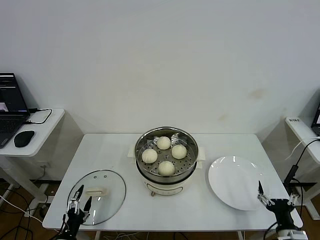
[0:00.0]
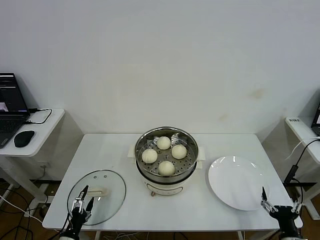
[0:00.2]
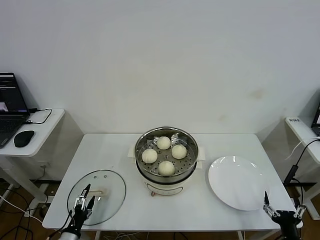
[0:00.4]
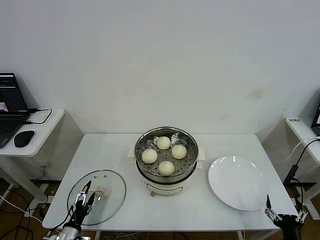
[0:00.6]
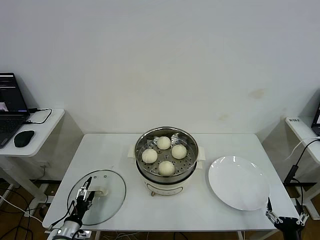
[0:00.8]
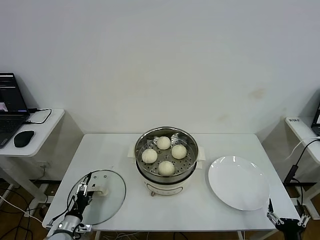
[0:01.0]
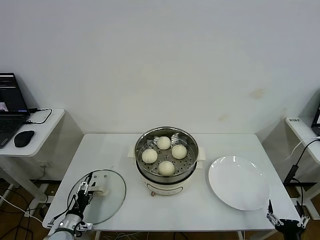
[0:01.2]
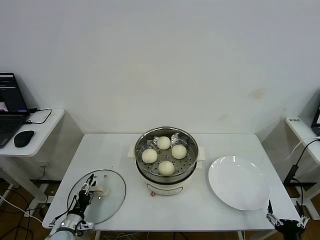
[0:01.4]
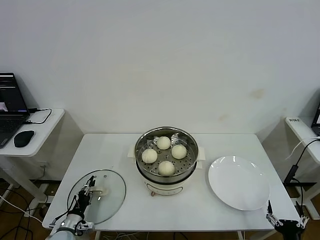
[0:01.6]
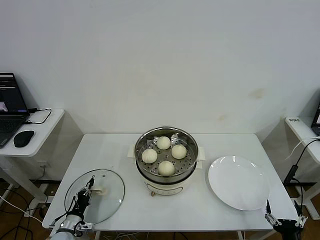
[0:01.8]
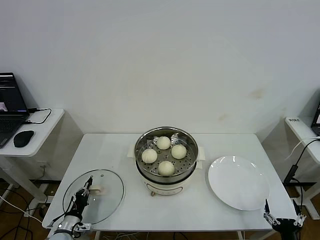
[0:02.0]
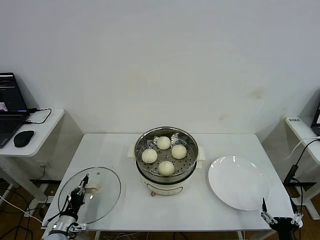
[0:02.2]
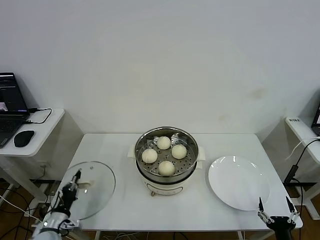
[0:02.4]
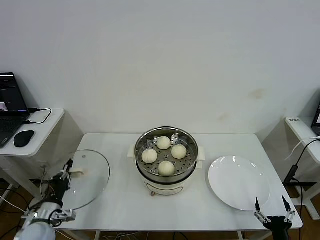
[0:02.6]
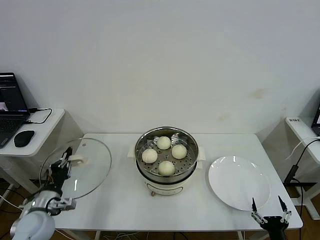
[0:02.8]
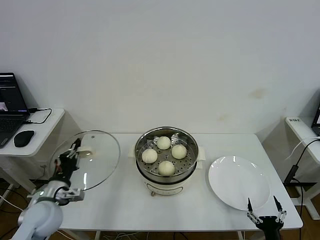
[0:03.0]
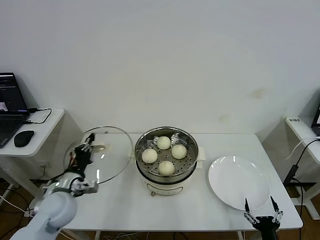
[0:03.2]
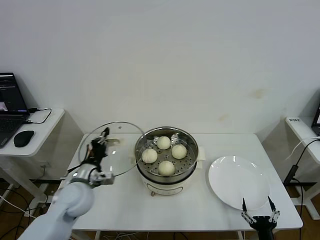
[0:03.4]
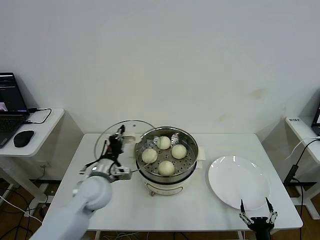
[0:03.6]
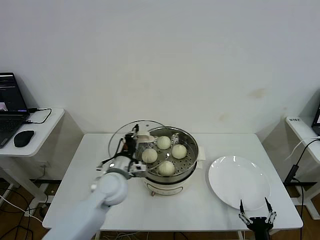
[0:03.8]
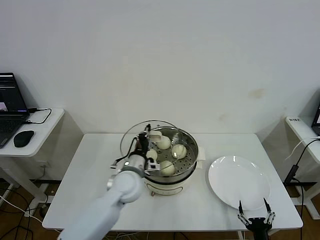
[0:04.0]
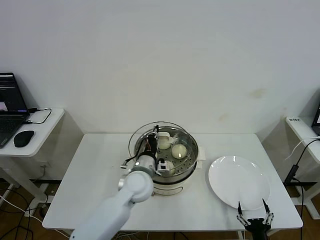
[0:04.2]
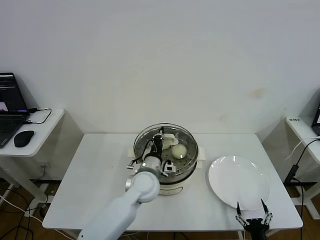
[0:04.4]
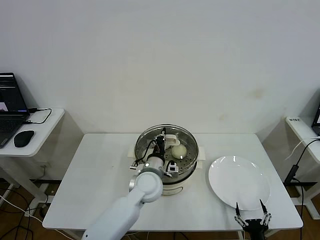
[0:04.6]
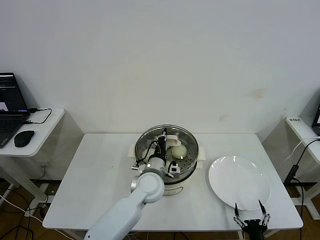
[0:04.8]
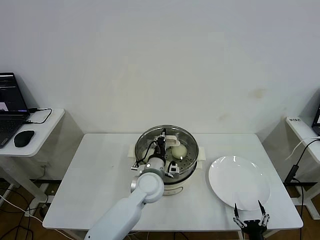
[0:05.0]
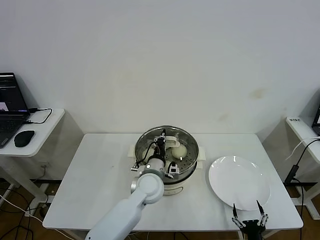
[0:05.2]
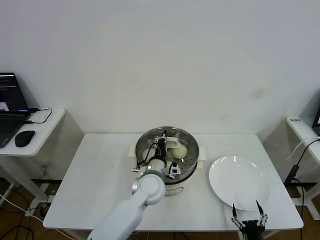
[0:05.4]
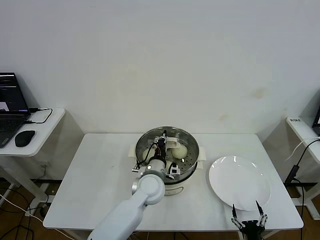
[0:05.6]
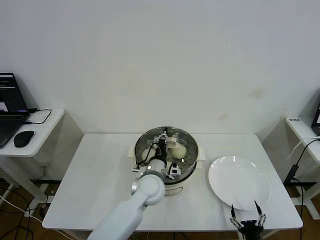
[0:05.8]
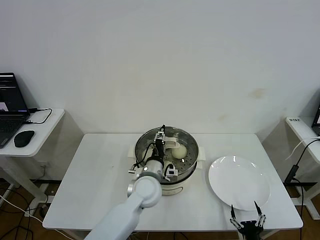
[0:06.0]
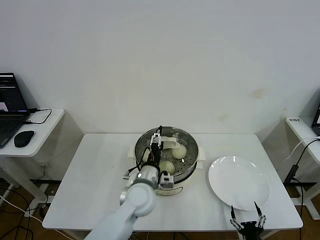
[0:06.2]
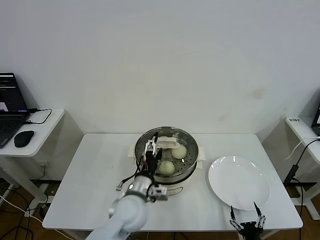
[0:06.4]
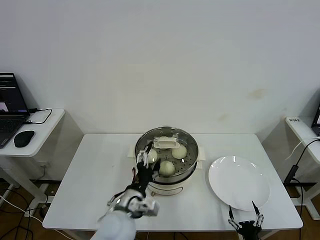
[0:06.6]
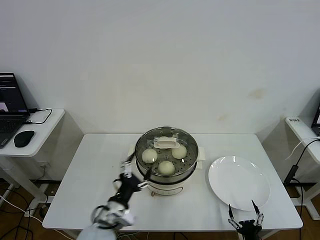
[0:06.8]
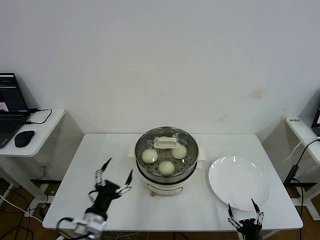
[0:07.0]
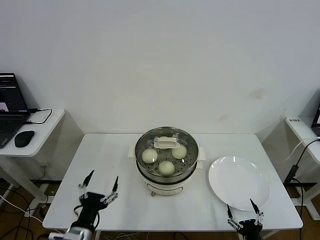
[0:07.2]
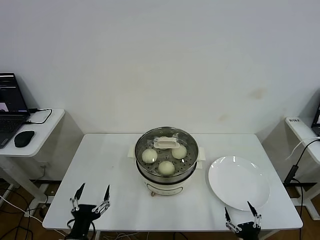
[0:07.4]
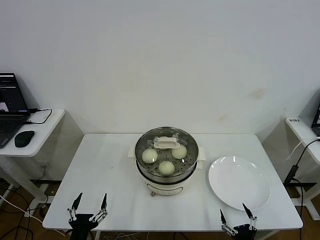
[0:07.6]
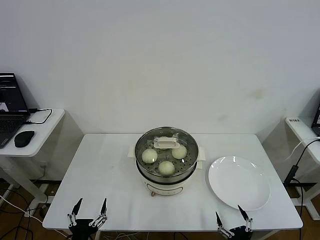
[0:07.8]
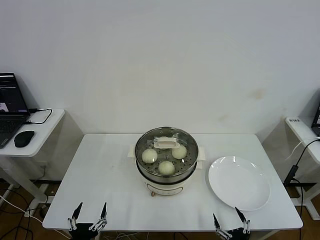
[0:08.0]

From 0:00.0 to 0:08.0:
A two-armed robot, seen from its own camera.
Step, from 0:02.0 to 0:06.0: Place the pot lid on the steamer with left gripper.
From 0:00.0 to 0:01.6: The left gripper is displaced forward and downward by roughly 10 cm, and closes up. Meanwhile the right gripper goes some 5 cm backward.
From 0:01.6 to 0:03.2: The left gripper moves upward, roughly 20 cm, and closes.
From 0:03.2 to 0:04.8: The left gripper shifts some 25 cm to the right.
From 0:04.8 to 0:06.4: The left gripper shifts some 5 cm backward, and opens.
From 0:06.4 to 0:08.0: The right gripper shifts by approximately 5 cm; the left gripper goes approximately 30 cm backward, to the left and downward.

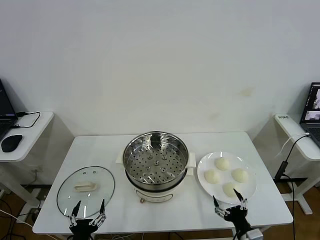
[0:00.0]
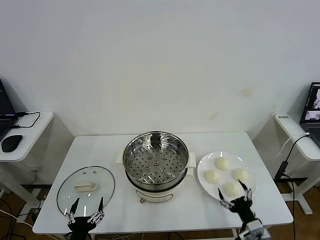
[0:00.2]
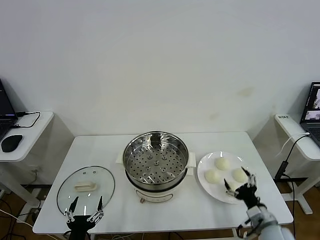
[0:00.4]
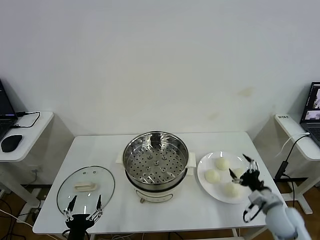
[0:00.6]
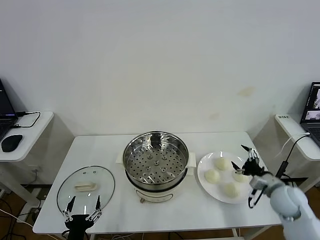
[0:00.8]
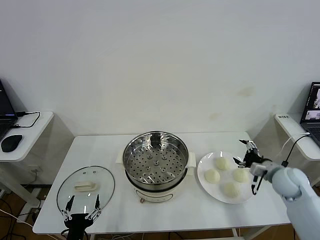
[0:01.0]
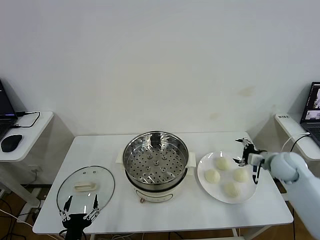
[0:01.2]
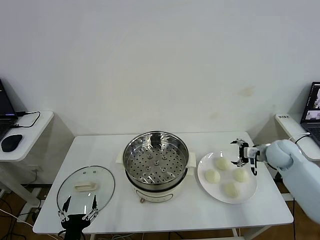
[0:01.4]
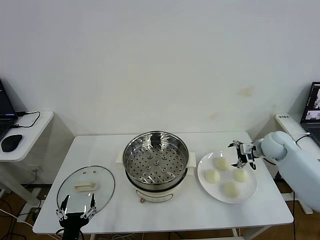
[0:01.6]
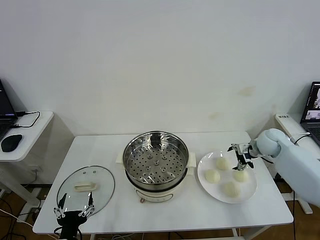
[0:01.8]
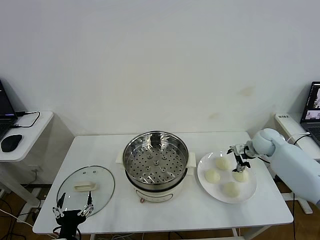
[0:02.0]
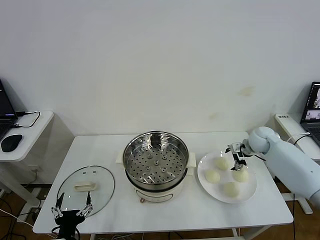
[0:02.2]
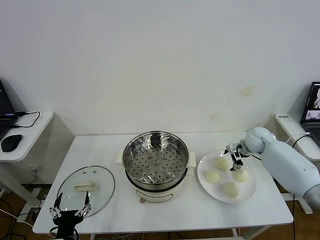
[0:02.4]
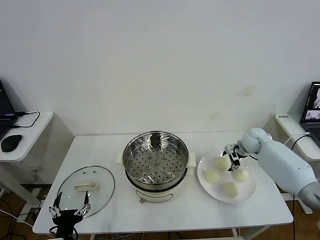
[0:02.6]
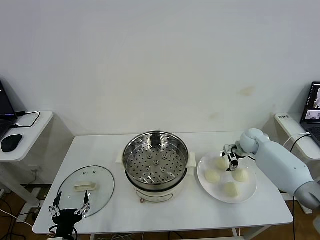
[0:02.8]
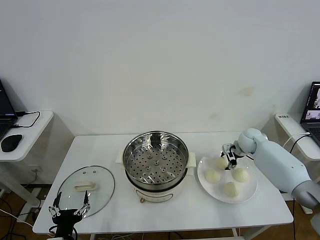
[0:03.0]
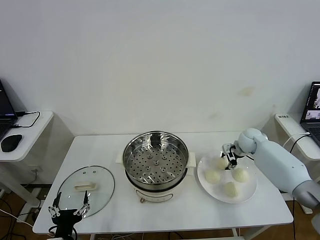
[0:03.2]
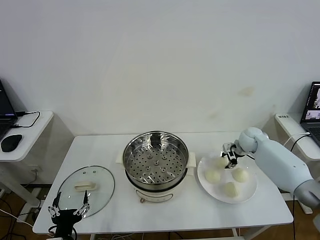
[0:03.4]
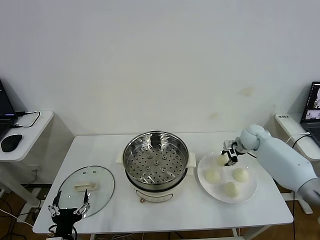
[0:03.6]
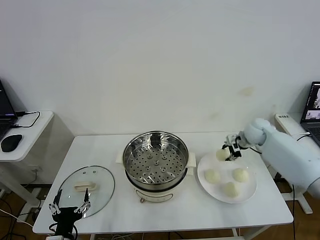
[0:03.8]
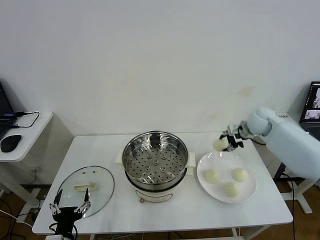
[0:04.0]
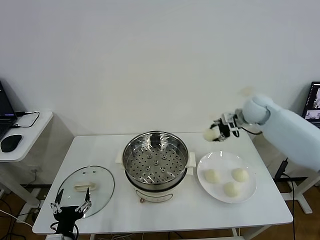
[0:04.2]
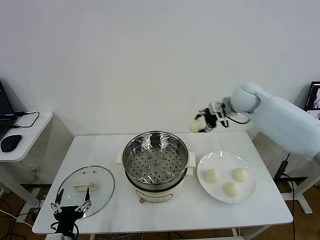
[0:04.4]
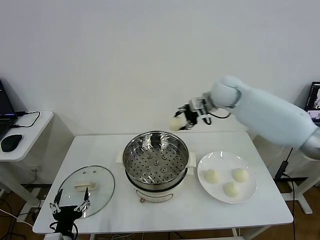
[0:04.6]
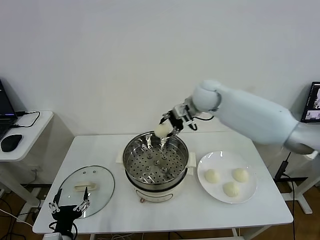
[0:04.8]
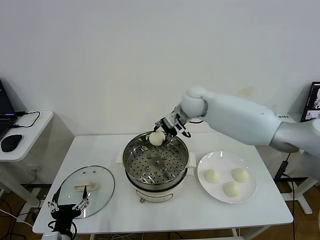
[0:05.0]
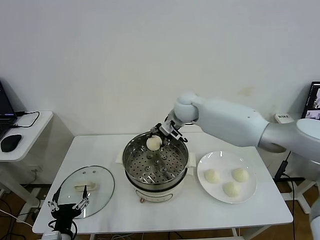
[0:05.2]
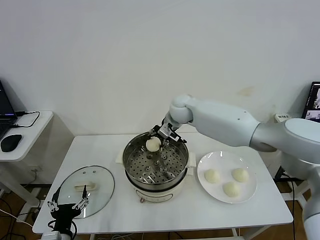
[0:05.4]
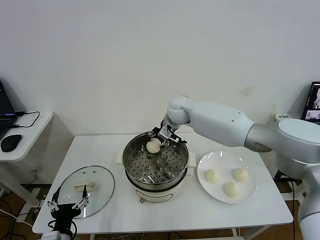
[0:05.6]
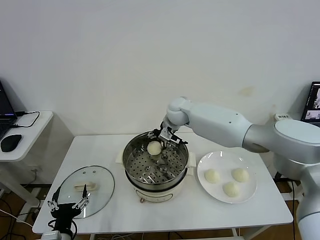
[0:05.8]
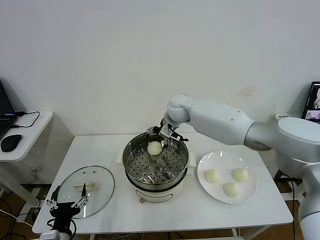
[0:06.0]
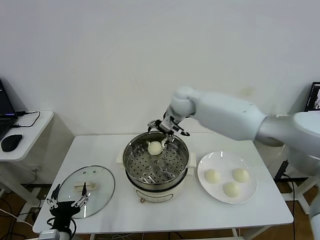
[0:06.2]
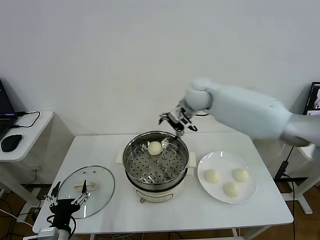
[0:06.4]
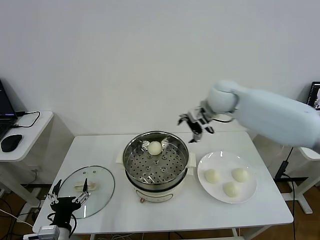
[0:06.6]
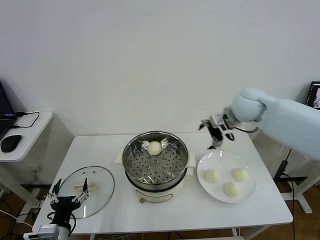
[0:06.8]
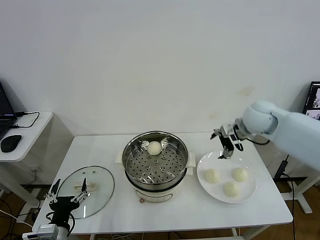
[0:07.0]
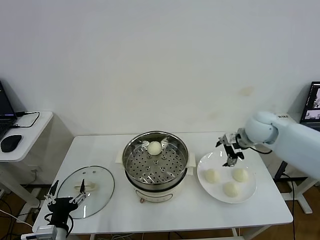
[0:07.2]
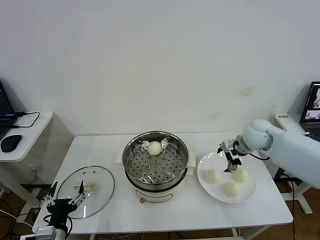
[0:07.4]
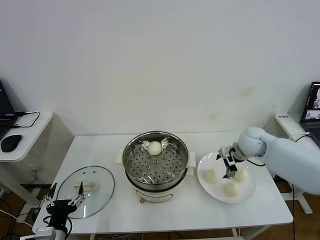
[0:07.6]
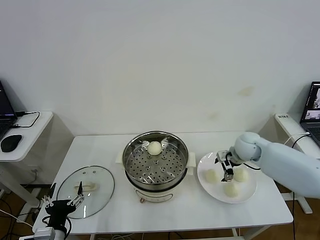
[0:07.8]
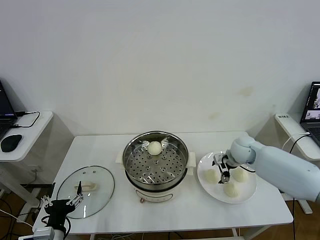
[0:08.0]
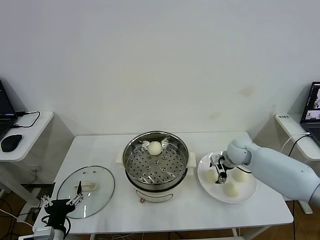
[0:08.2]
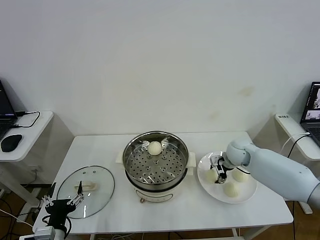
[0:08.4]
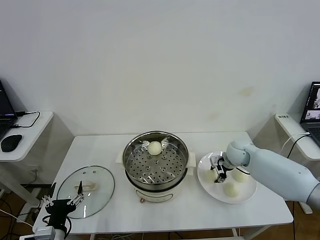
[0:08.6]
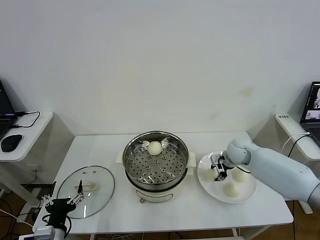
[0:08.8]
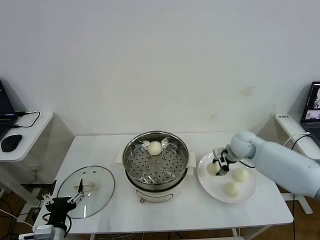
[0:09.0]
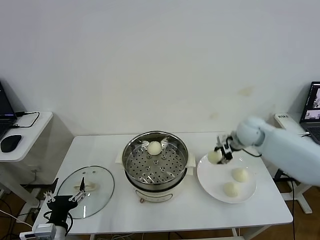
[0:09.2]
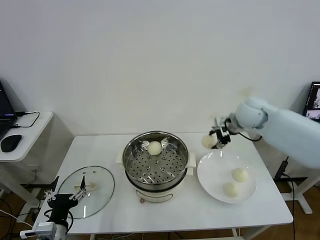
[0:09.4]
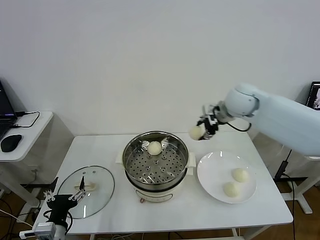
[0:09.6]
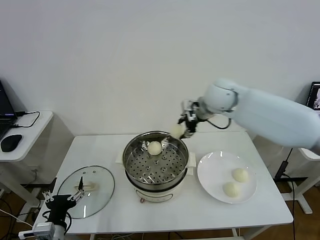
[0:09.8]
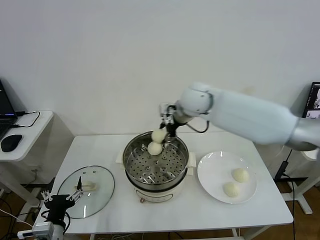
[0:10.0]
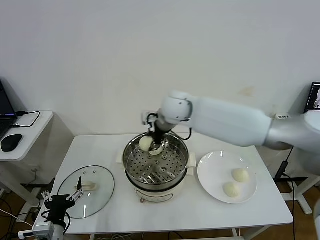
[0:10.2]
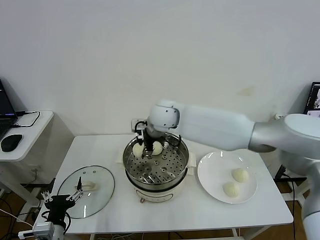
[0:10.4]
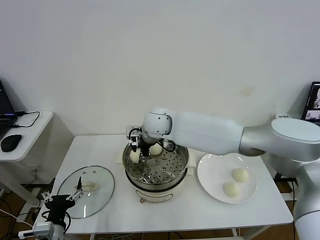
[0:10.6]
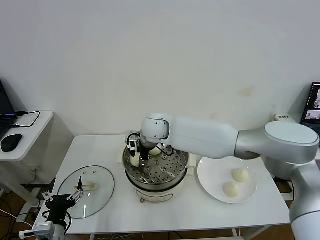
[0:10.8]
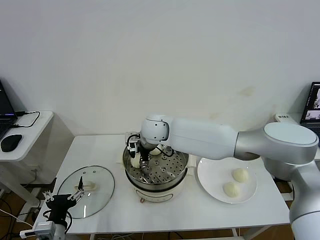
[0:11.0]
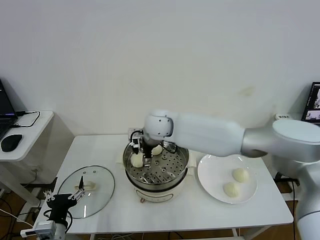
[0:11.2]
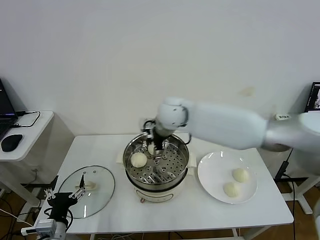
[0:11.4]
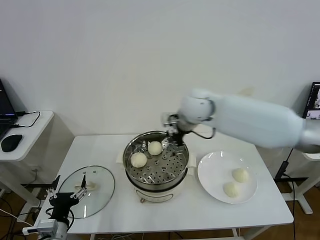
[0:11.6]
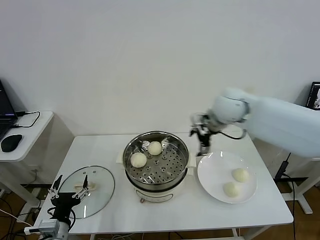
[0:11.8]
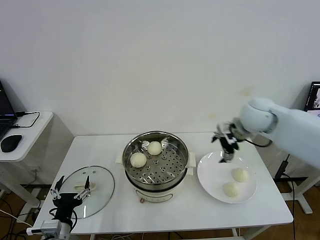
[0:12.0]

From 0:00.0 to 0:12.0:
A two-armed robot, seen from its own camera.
Step, from 0:00.0 to 0:03.2: Grasp the baozi in the plate with right gripper.
Step, from 0:03.4 to 0:05.6: Place the baozi on the steamer with right gripper.
Step, from 0:06.0 to 0:08.6: Grasp the baozi in the plate with right gripper.
Step, from 0:08.8 to 0:11.0: Place the baozi on the steamer with right gripper.
From 0:01.6 to 0:03.0: The right gripper heads forward and downward, covering about 5 cm, and closes its fingers.
From 0:03.0 to 0:04.4: The right gripper goes roughly 25 cm upward and to the left.
From 0:04.4 to 0:06.0: The right gripper shifts about 15 cm to the left, and opens its fingers.
From 0:06.0 to 0:07.6: The right gripper moves to the right and downward, approximately 25 cm.
From 0:07.6 to 0:09.0: The right gripper closes.
From 0:09.0 to 0:10.4: The right gripper shifts some 30 cm to the left.
From 0:10.4 to 0:12.0: The right gripper moves to the right, about 30 cm, and opens.

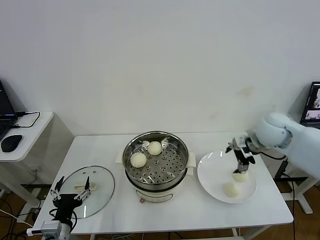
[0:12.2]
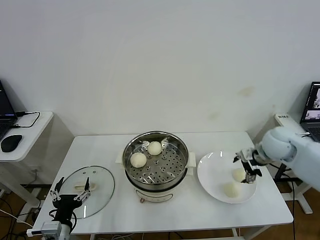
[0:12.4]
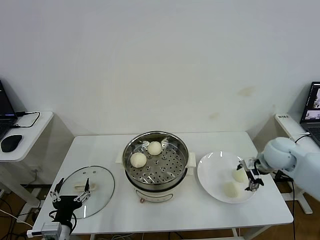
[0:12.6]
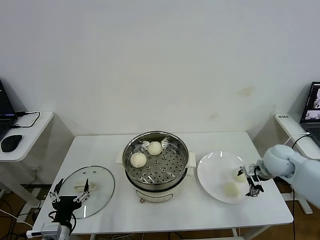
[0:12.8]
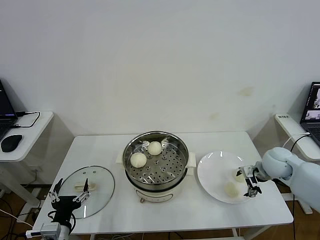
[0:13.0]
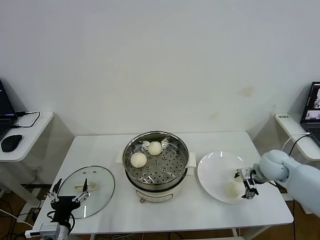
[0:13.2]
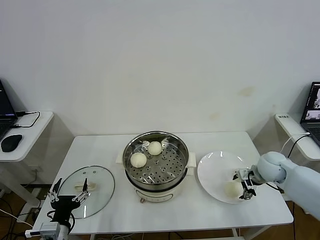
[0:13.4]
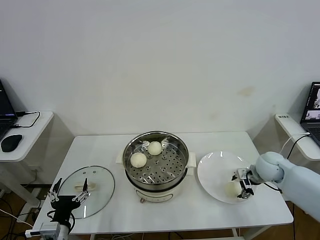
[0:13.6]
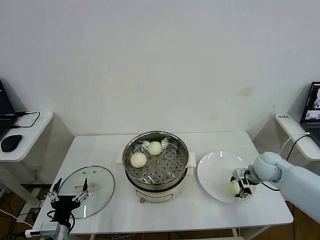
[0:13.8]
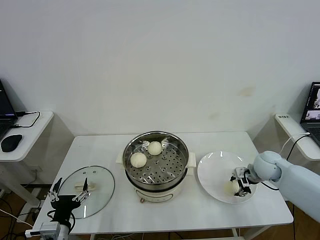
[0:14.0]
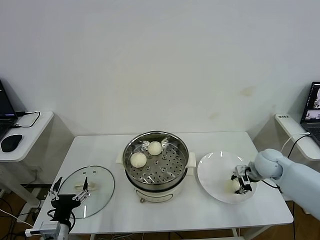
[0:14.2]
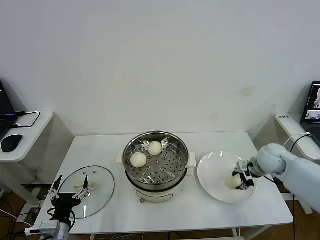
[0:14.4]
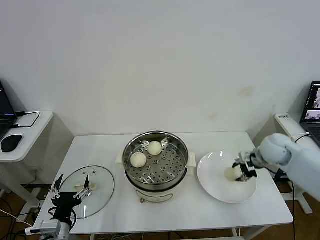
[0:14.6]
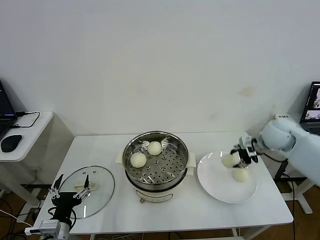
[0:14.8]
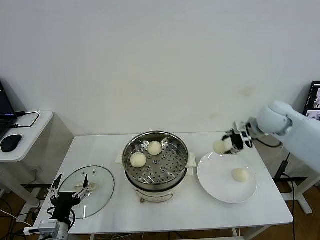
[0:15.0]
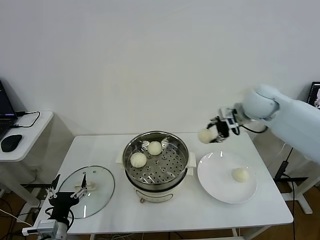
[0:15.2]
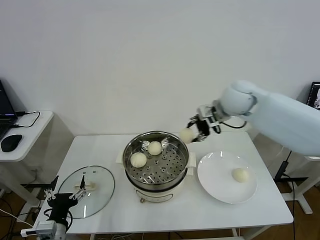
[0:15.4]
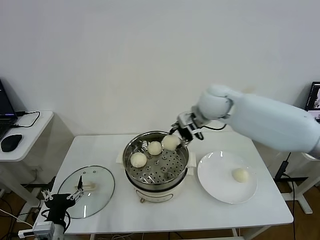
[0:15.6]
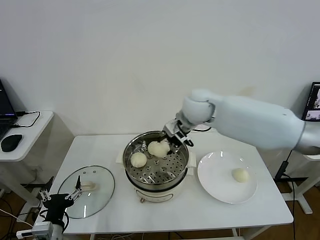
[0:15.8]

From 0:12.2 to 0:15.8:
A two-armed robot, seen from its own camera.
Step, from 0:12.2 to 0:14.0: Grasp the baozi in the plate with right gripper.
From 0:12.2 to 0:14.0: The right gripper moves downward, about 15 cm, and closes its fingers.
From 0:14.0 to 0:15.8: The right gripper travels to the left and upward by some 35 cm.
